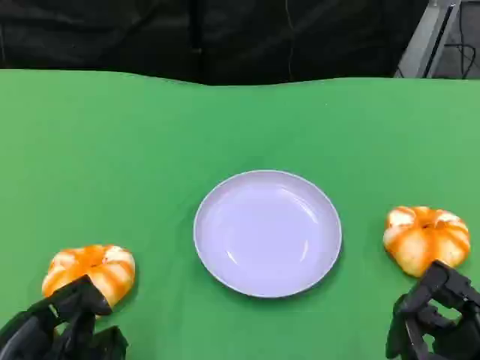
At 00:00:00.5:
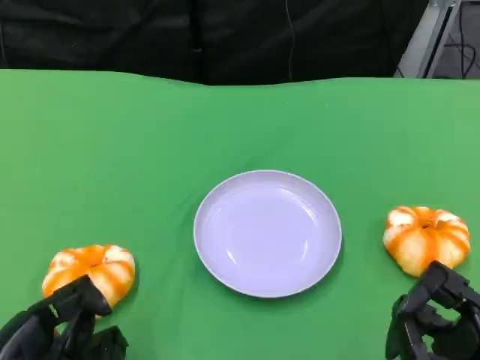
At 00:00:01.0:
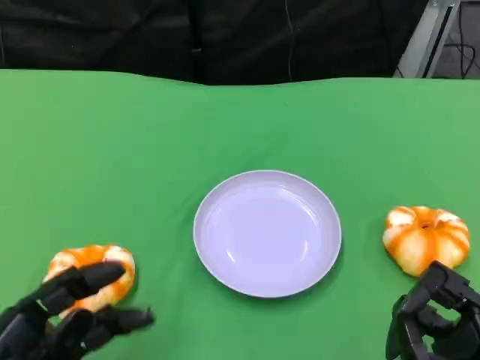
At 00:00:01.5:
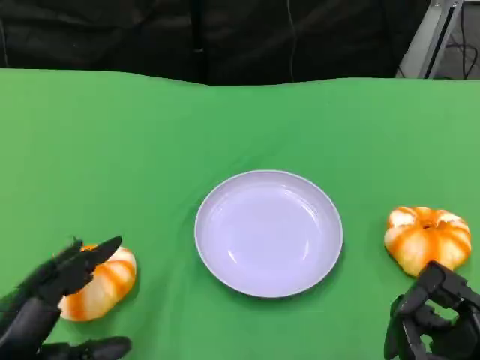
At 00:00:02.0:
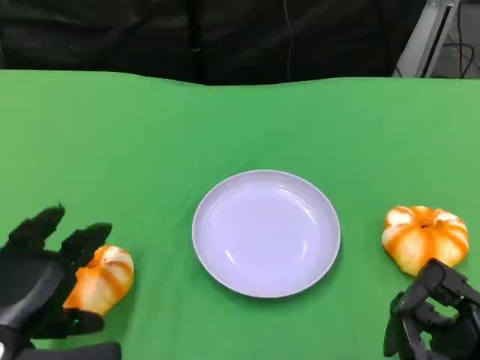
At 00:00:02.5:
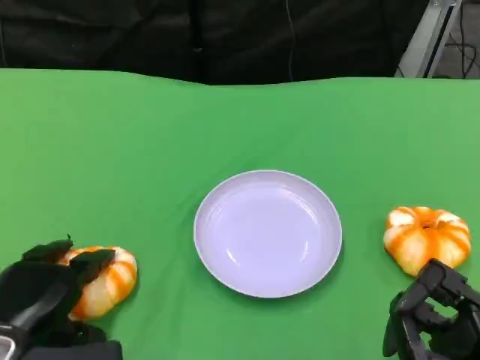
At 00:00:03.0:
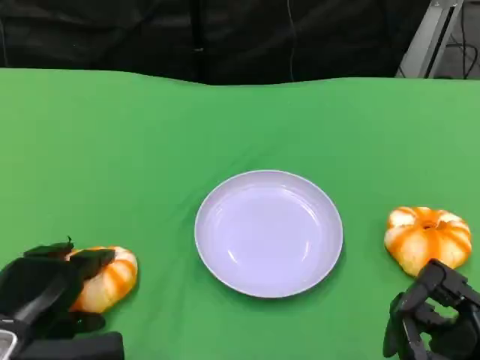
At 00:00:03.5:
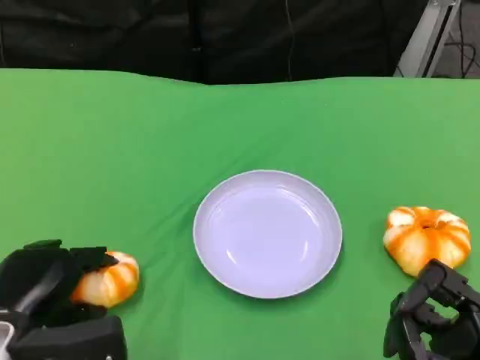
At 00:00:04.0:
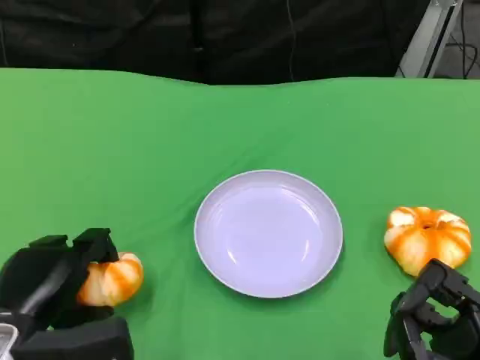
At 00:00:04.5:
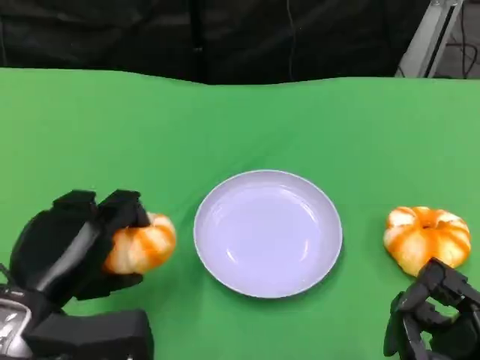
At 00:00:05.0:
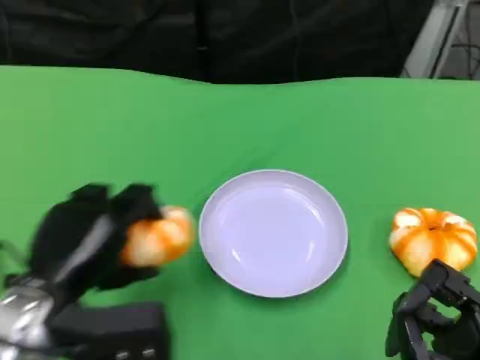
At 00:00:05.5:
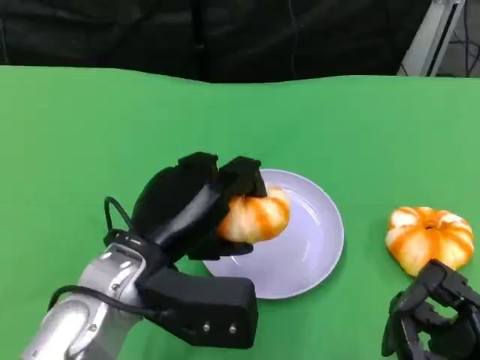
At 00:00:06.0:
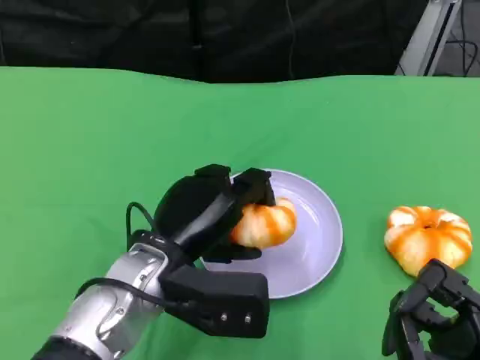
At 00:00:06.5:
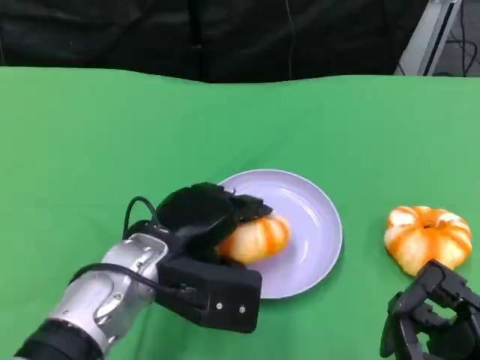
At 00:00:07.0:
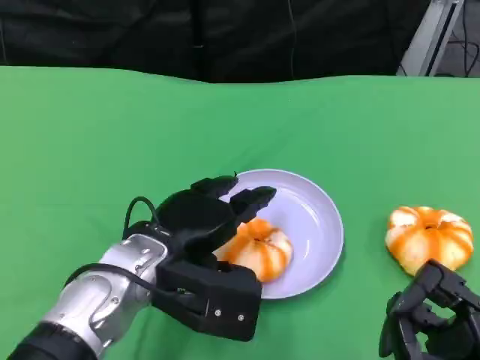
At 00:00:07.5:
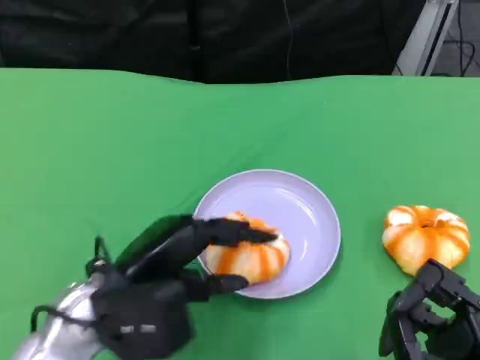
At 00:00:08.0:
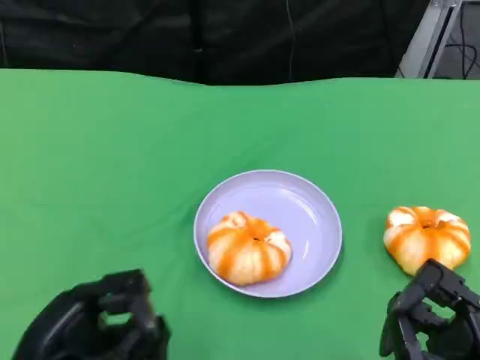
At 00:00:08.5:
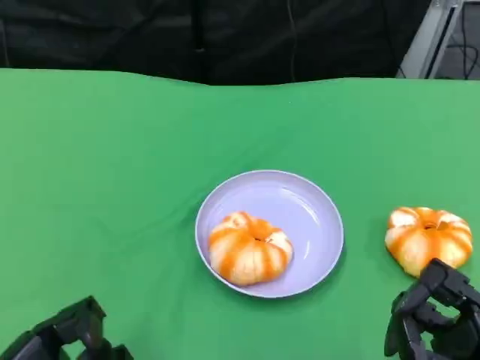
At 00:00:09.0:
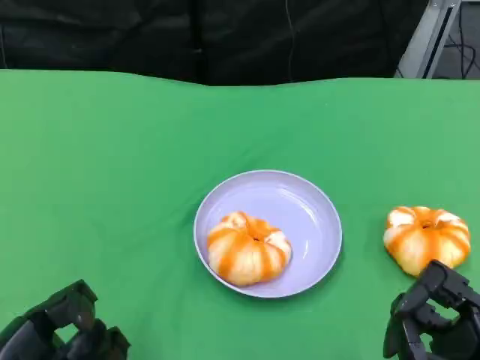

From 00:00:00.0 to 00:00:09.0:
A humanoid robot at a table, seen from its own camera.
Task of the whole recording: Grasp the bread from the table and place it into the plate.
From 00:00:00.0 to 00:00:02.0: The left hand goes about 5 cm forward.
From 00:00:02.0 to 00:00:04.5: The hands make only small movements.
From 00:00:04.5 to 00:00:07.0: The left hand travels to the right and forward by about 10 cm.
From 00:00:07.0 to 00:00:09.0: The left hand goes about 20 cm to the left and backward.
